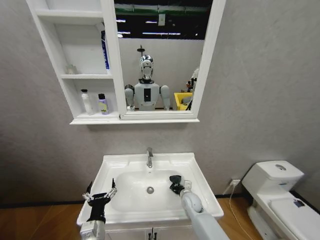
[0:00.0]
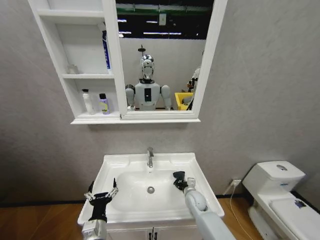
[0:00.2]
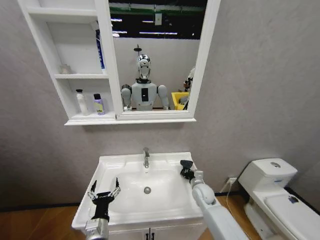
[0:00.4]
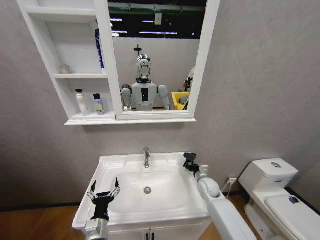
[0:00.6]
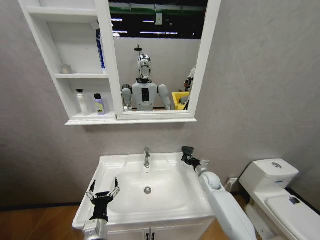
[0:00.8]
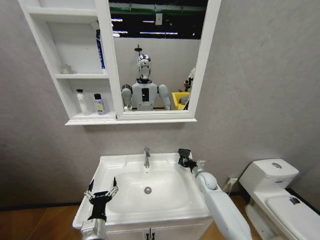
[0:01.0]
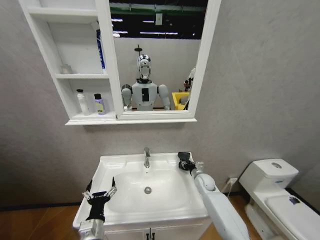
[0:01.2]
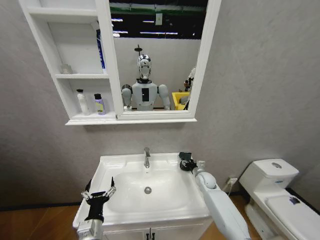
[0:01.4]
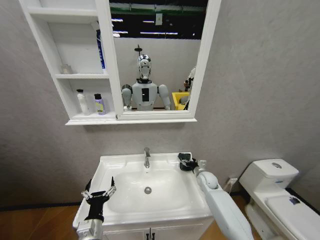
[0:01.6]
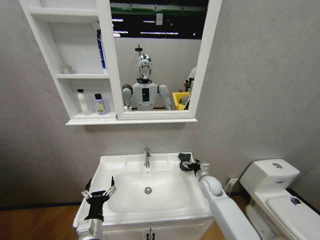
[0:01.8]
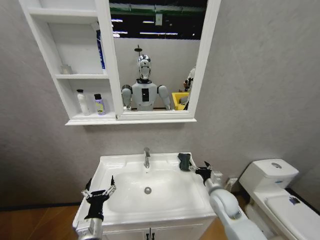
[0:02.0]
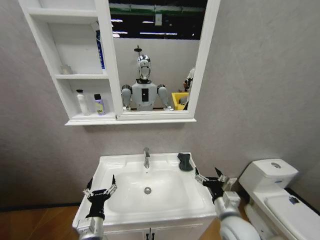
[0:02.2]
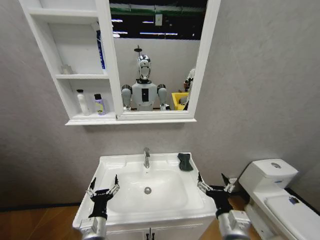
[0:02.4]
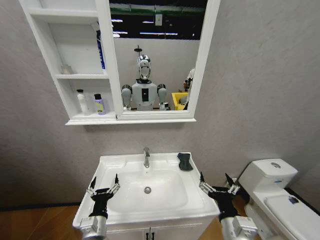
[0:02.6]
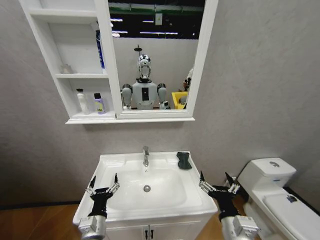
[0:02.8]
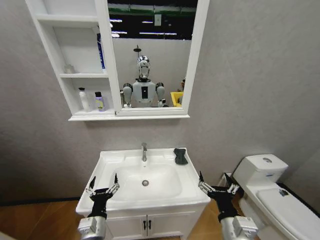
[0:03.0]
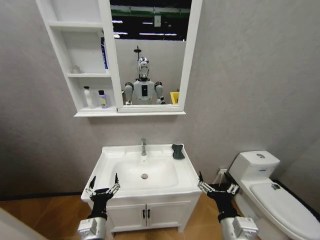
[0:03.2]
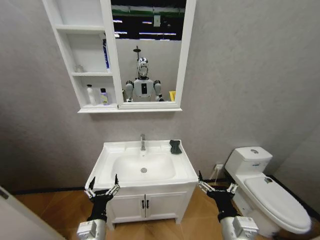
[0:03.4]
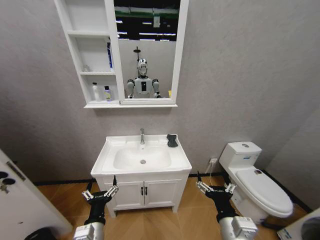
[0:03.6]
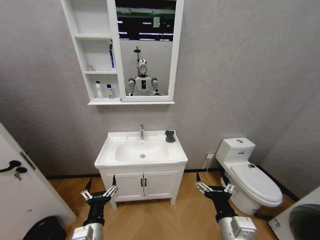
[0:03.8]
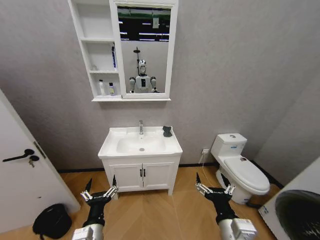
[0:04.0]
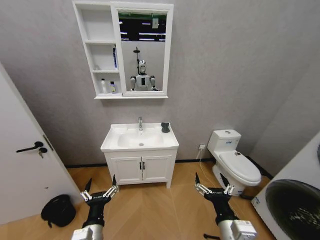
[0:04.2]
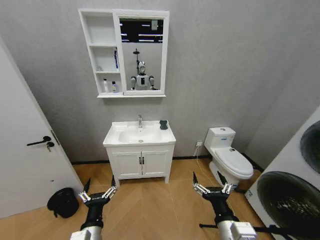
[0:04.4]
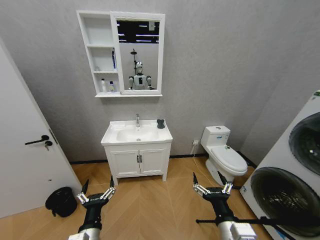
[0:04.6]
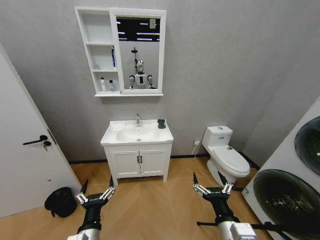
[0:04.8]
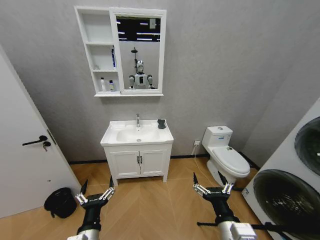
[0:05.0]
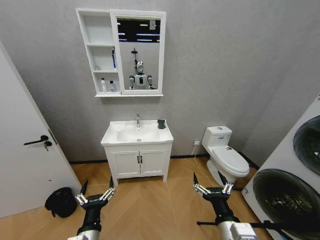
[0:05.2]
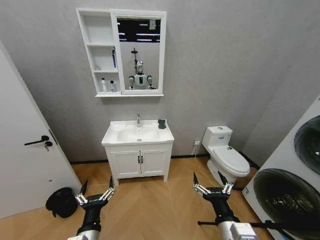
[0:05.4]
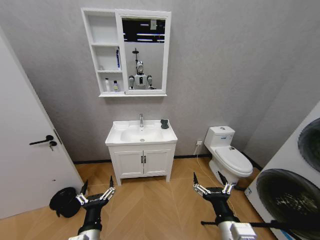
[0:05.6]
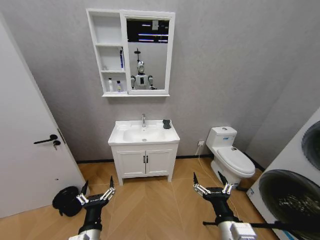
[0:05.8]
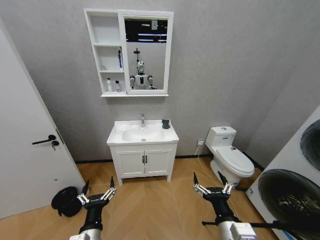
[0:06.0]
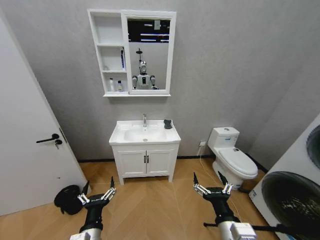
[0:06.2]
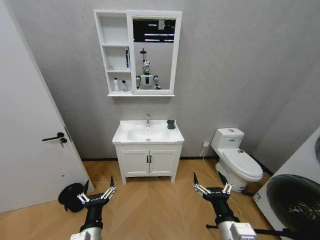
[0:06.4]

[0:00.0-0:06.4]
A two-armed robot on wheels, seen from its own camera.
Task of the whole recording: Move facial cleanser and shampoo from washbasin to cabinet, then wipe washbasin with towel.
0:00.0 to 0:01.6: The right gripper goes approximately 15 cm to the right, upward and forward, and opens up.
0:01.6 to 0:03.2: The right gripper travels backward by approximately 35 cm.

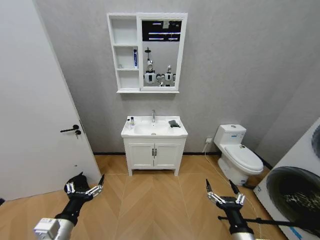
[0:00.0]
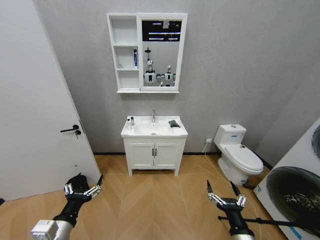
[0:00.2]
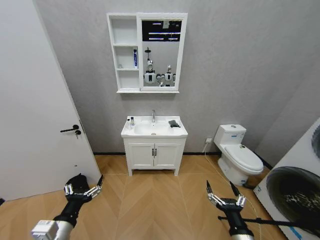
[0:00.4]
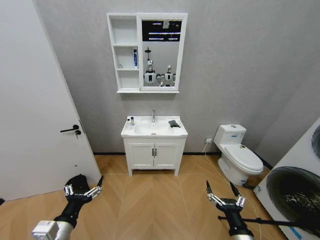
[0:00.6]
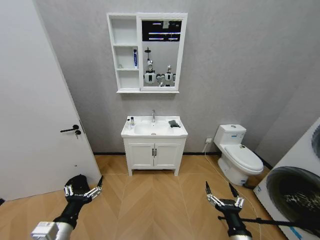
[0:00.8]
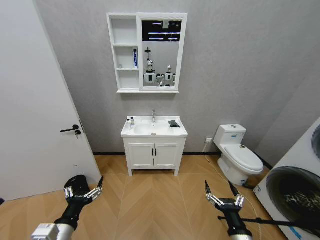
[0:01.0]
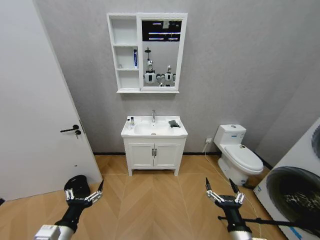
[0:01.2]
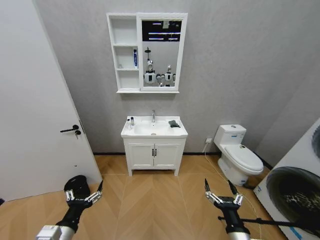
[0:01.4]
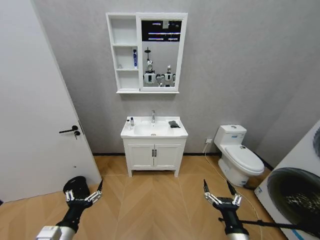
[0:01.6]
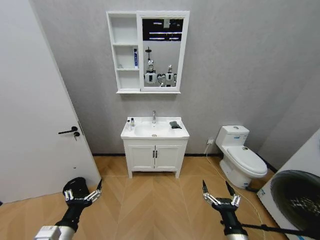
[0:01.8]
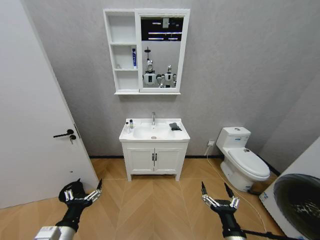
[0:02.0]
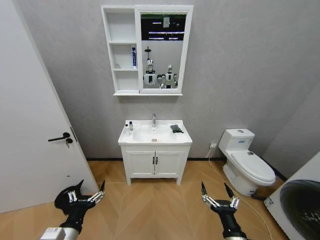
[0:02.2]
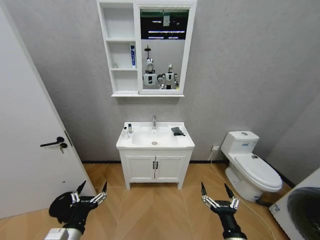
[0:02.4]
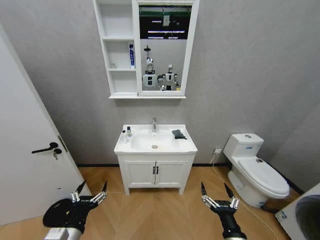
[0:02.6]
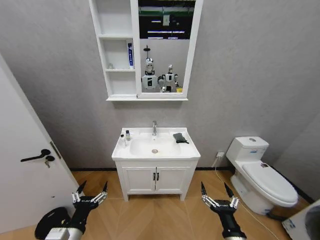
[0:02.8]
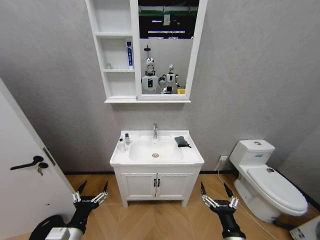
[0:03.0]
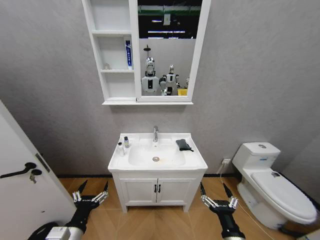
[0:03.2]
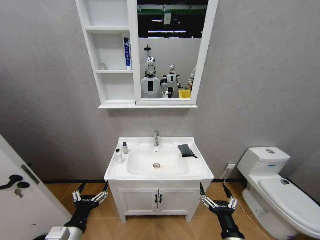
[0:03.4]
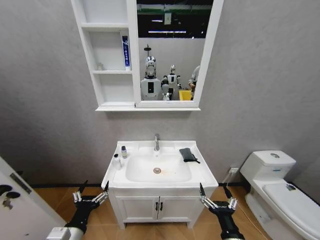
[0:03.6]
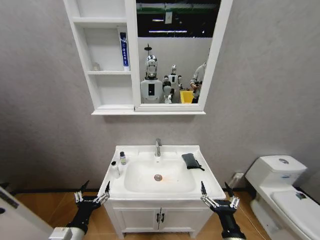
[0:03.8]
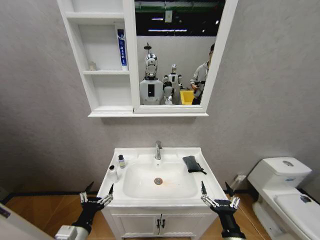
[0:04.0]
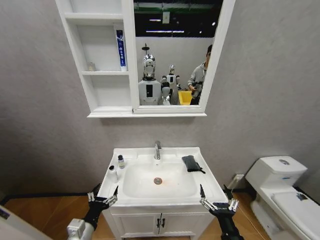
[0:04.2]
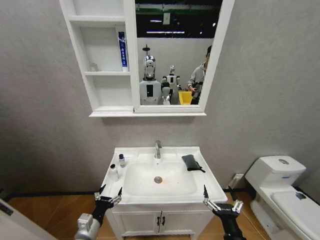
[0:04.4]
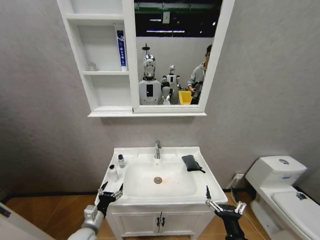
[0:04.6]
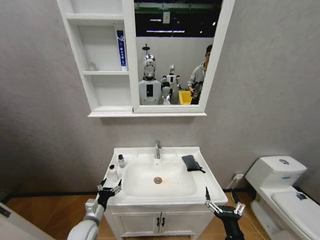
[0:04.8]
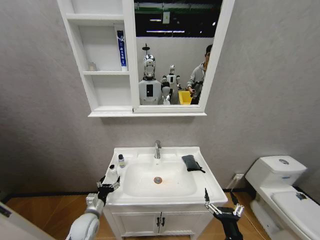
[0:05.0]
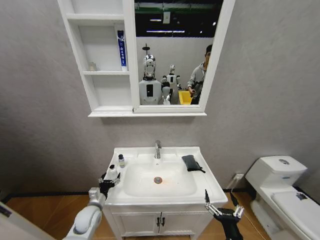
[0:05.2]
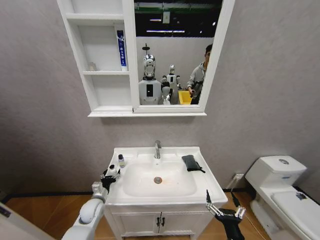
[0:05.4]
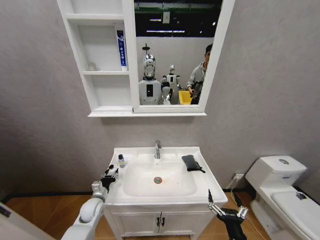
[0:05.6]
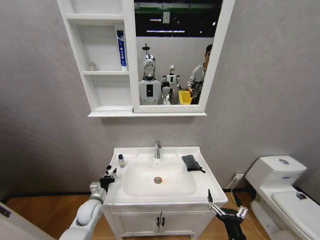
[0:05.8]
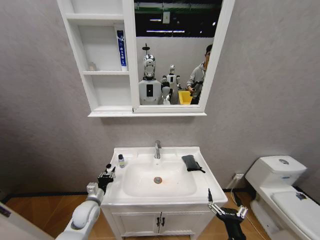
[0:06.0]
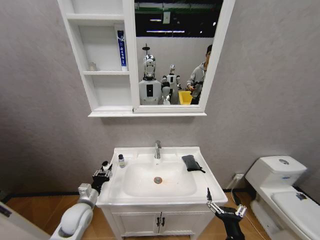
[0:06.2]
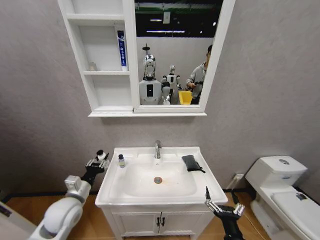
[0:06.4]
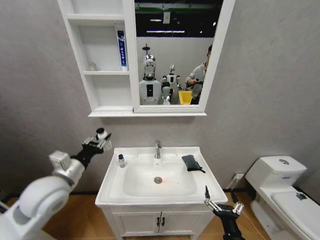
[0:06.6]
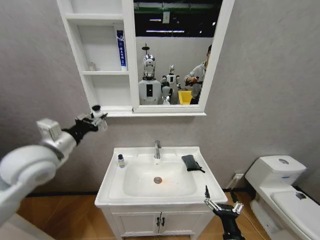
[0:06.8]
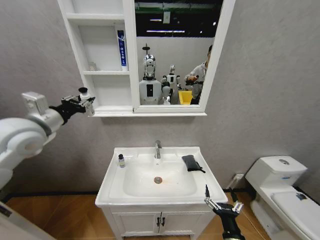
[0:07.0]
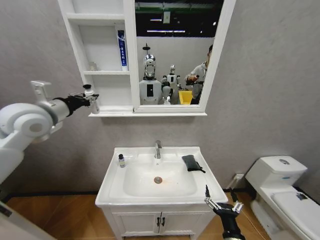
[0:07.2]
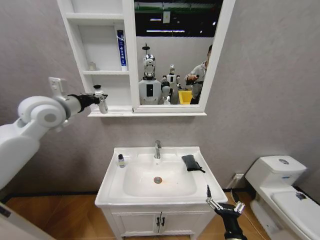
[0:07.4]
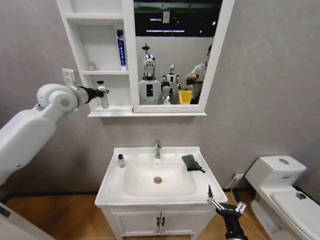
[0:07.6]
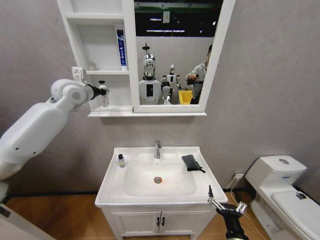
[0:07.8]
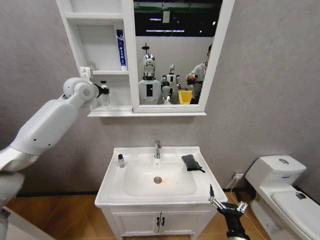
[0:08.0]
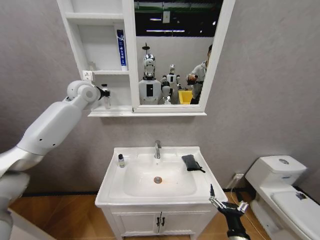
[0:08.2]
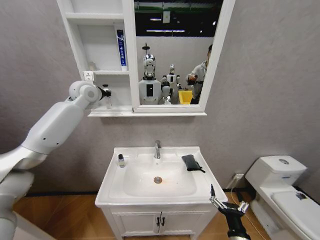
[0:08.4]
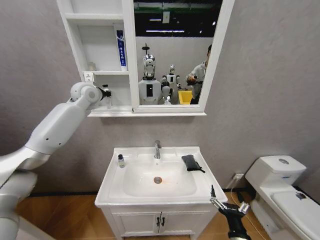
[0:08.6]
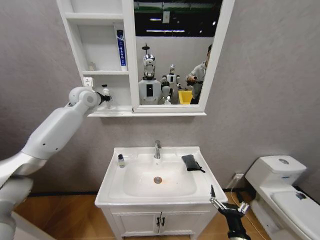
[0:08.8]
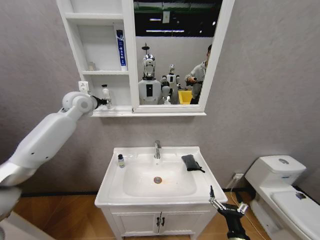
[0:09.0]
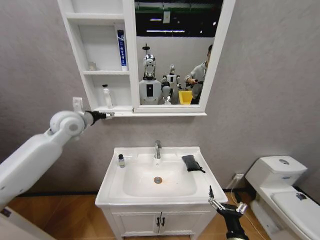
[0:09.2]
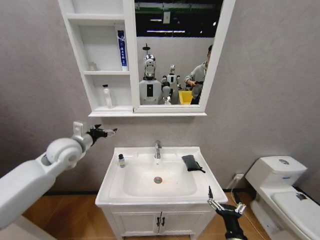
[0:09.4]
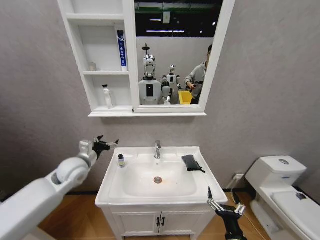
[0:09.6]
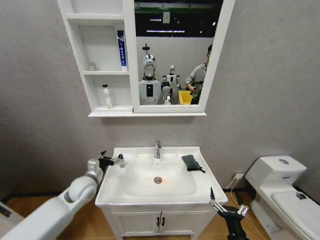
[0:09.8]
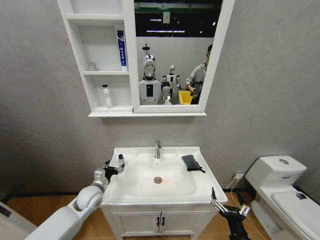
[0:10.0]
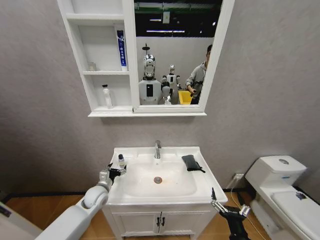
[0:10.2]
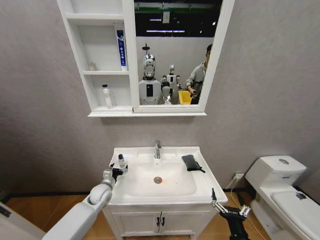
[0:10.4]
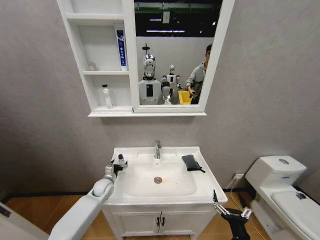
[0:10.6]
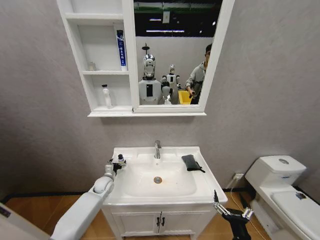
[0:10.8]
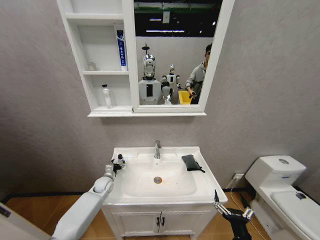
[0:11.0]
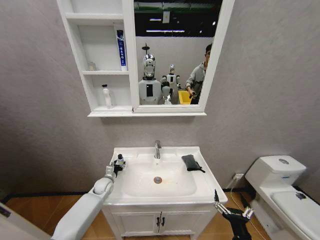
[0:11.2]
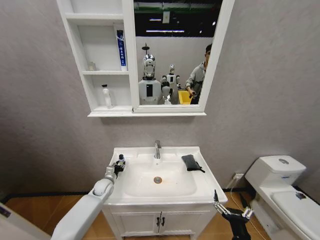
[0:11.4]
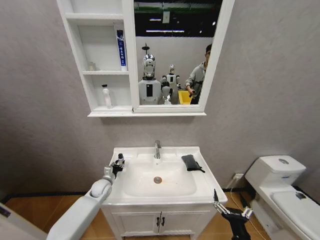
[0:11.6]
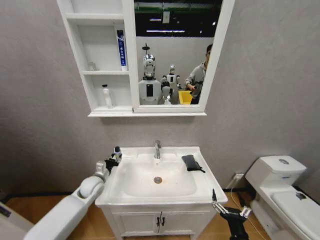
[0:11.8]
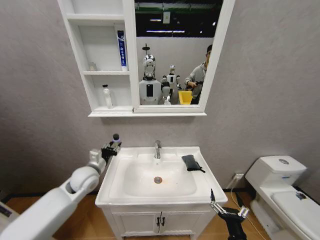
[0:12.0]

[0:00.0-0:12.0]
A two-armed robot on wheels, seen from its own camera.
Task of the whole recording: Move facial cleanser and shampoo from washbasin to cabinet, then wipe washbasin with towel.
0:03.0 to 0:04.4: The left gripper travels downward and forward by approximately 10 cm.
0:04.4 to 0:06.0: The left gripper moves forward, about 15 cm, and closes up.
0:06.0 to 0:07.6: The left gripper goes about 50 cm upward.
0:07.6 to 0:09.0: The left gripper shifts by about 5 cm, and opens its fingers.
0:09.0 to 0:10.4: The left gripper shifts some 40 cm downward, and opens up.
0:10.4 to 0:12.0: The left gripper goes roughly 15 cm upward, and closes its fingers.

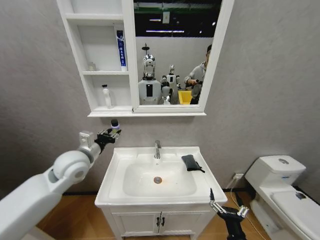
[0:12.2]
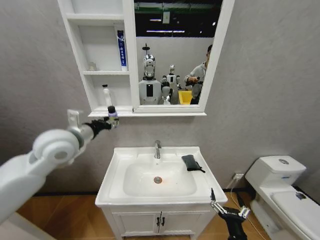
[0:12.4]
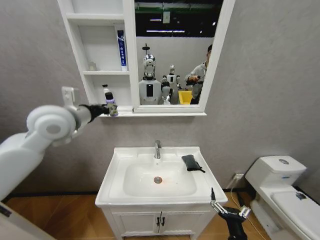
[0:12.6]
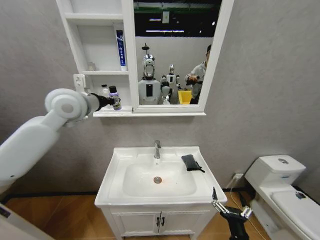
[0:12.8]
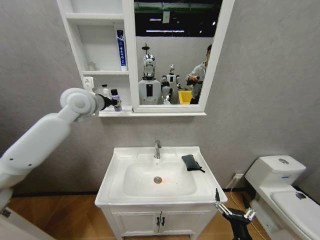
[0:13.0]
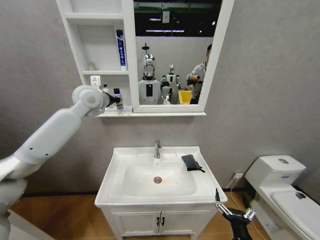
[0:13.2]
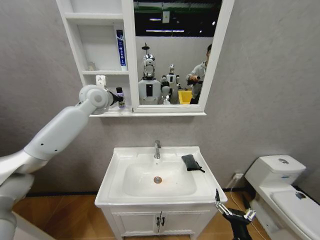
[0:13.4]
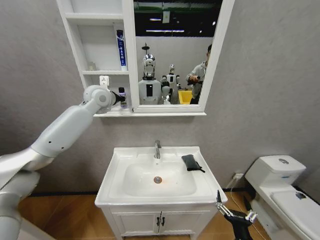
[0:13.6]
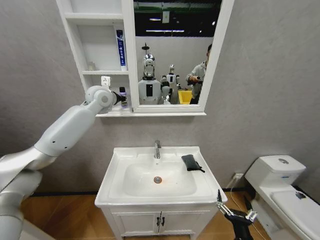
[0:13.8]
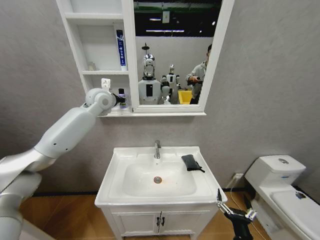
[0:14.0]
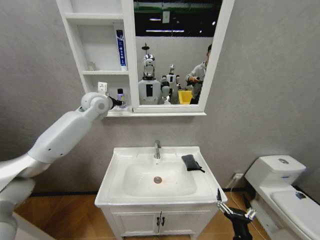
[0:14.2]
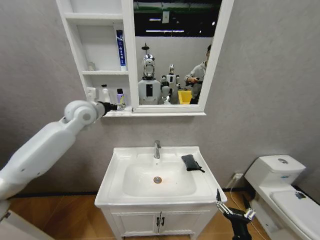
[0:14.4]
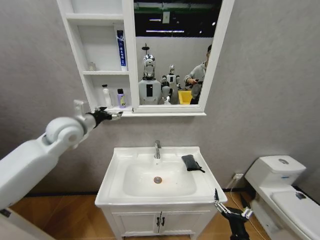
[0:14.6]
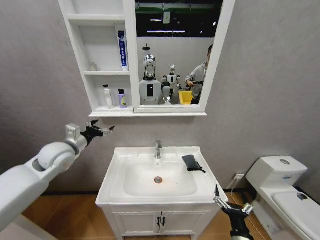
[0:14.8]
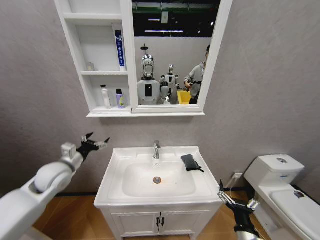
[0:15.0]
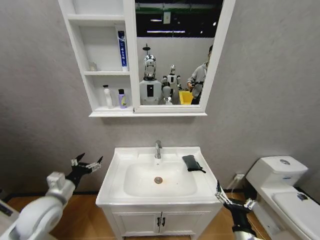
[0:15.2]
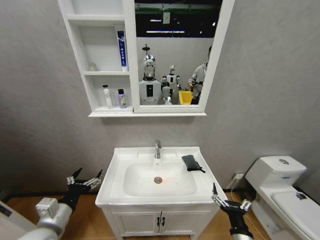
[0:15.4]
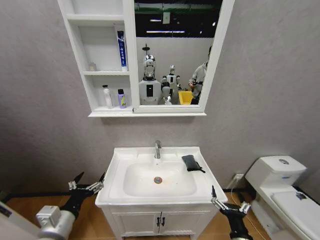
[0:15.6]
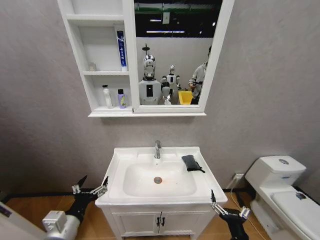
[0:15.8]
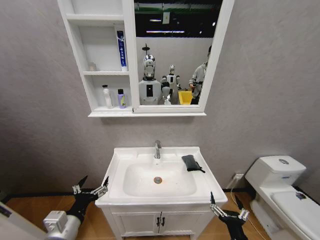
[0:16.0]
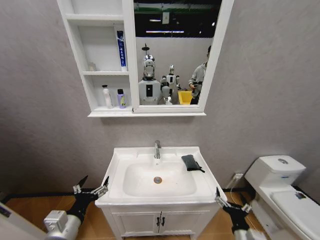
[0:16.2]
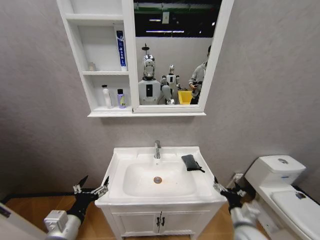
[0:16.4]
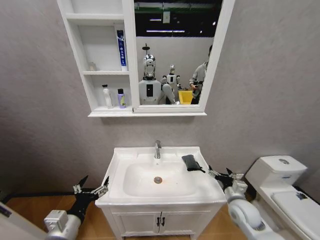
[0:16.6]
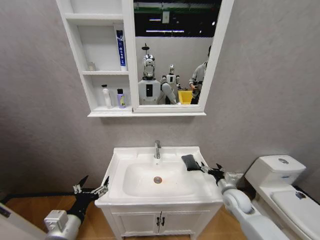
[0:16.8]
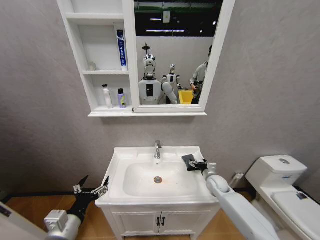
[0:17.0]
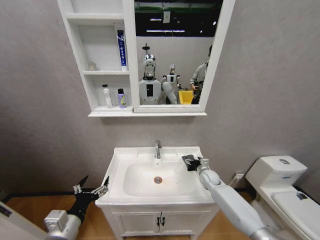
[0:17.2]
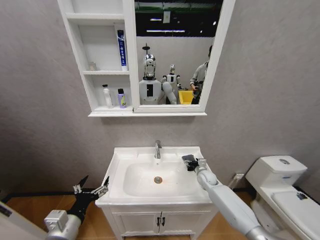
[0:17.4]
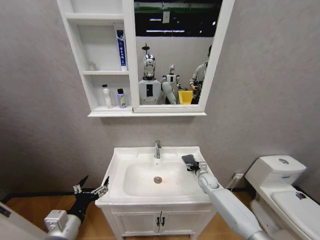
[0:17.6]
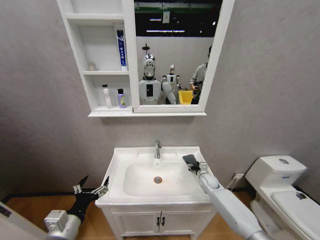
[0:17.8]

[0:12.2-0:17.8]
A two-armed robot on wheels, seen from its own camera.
Task of the whole recording: Move facial cleanser and shampoo from washbasin to cabinet, then wipe washbasin with towel.
0:12.2 to 0:13.6: The left gripper moves forward and upward, roughly 25 cm.
0:13.6 to 0:15.0: The left gripper heads downward, backward and to the left, covering approximately 30 cm, and opens up.
0:15.0 to 0:16.4: The right gripper is displaced forward by some 5 cm; the left gripper shifts approximately 20 cm backward.
0:16.4 to 0:17.8: The right gripper goes some 25 cm forward.
